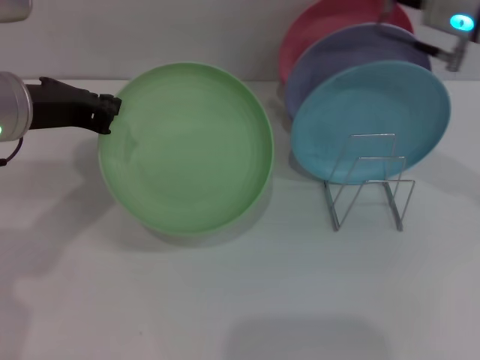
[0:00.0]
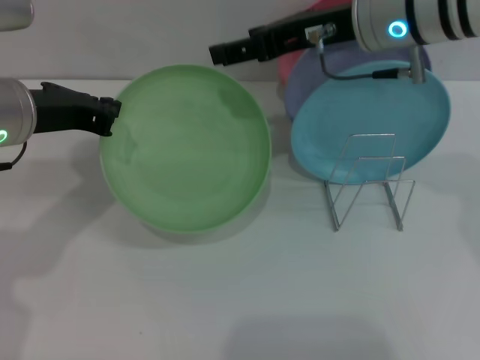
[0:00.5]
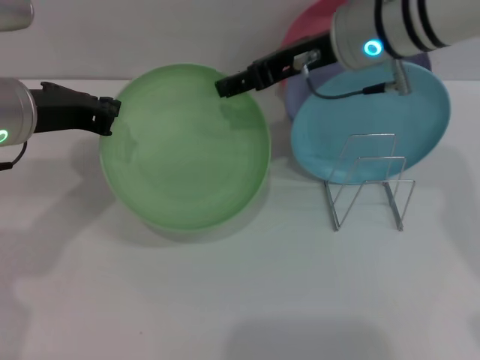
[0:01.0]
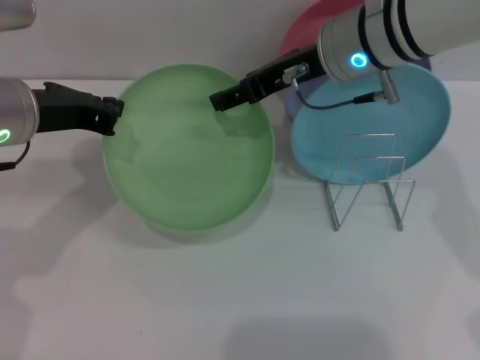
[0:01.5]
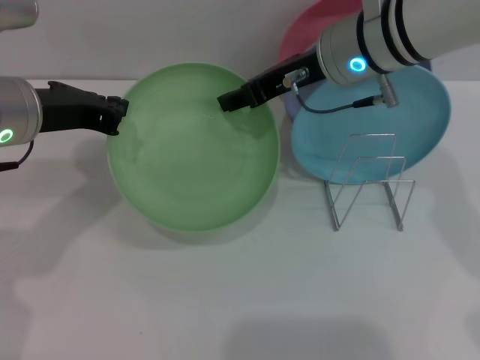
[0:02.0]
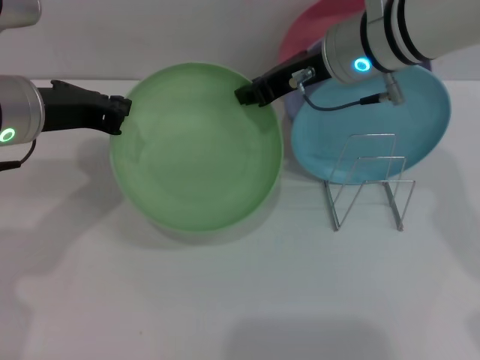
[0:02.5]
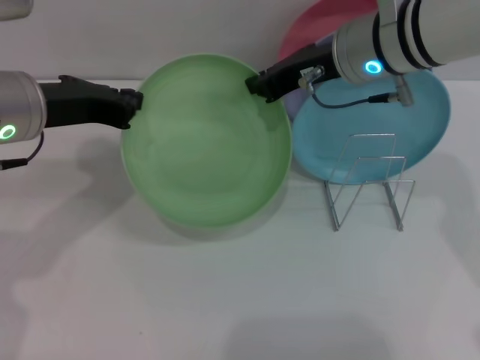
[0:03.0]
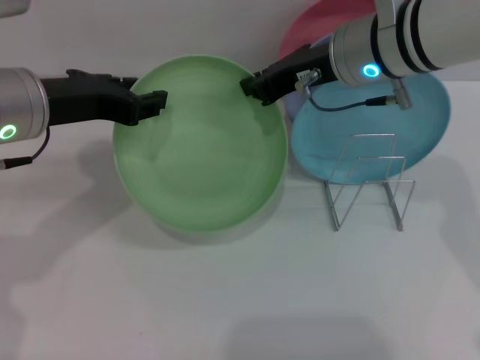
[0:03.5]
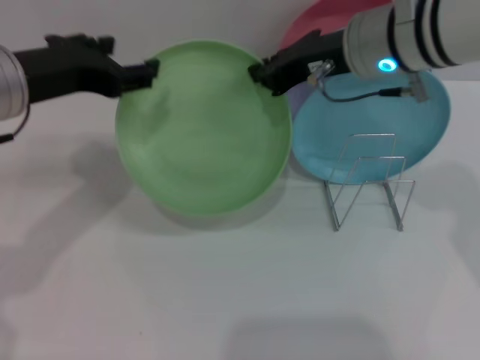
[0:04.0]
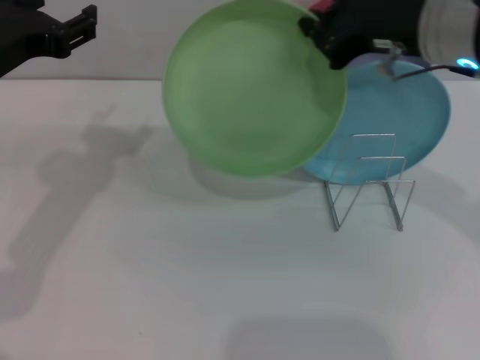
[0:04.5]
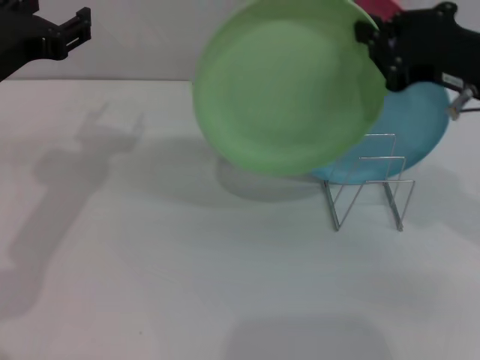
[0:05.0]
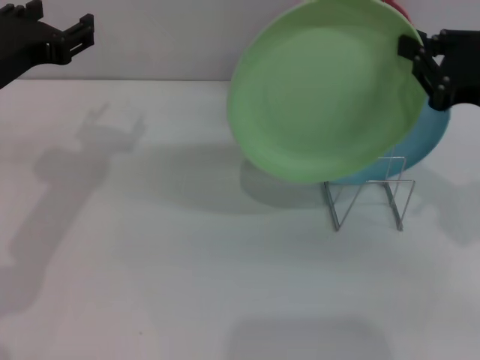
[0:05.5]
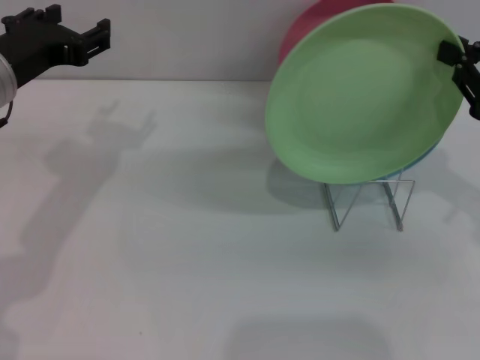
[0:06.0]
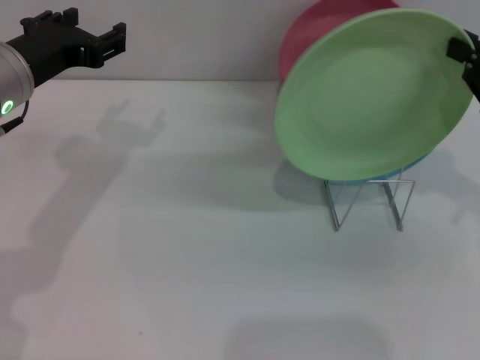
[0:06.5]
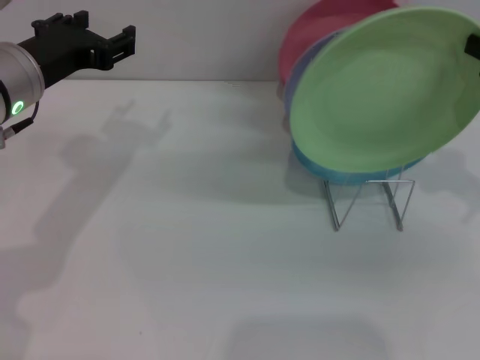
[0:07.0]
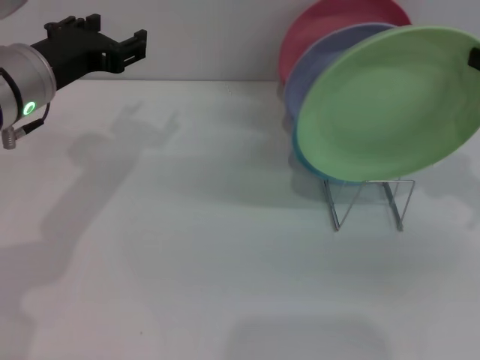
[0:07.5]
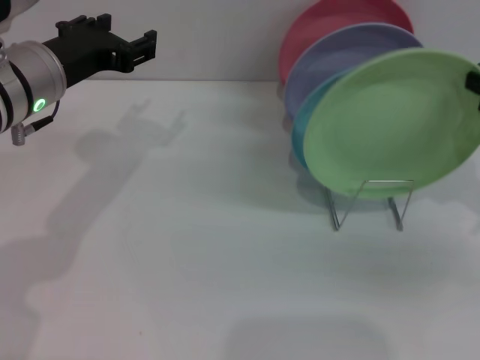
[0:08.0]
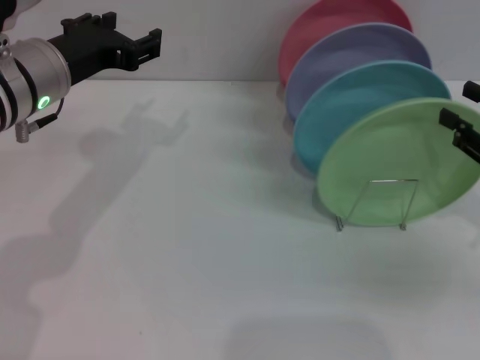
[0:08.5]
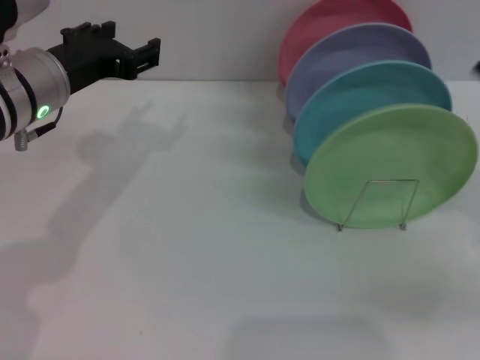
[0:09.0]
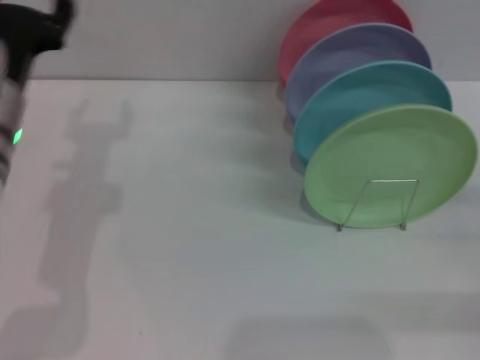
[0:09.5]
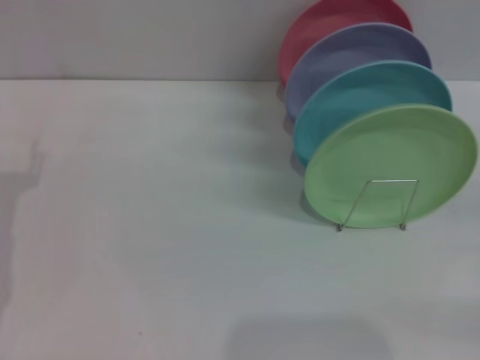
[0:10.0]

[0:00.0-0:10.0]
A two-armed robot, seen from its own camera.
Task of the whole recording: Grip the plate with one hand, pass it to the other, then set it on the shelf.
Step, 0:00.0 to 0:04.0: Pass the plate from the left gripper to the right gripper.
Step, 0:04.5 to 0:08.5: Place the plate on the shelf with the right gripper.
0:00.0 to 0:02.0: The right gripper goes roughly 10 cm to the left.
0:02.0 to 0:04.0: The left gripper opens; the right gripper closes its fingers.
0:04.0 to 0:06.0: The right gripper travels to the right and backward by roughly 20 cm.
0:06.0 to 0:08.0: There are only small adjustments of the grippers.
0:08.0 to 0:10.0: The right gripper is displaced to the right, downward and backward by some 10 cm, and opens, while the left gripper heads to the left, backward and downward, covering about 15 cm.
